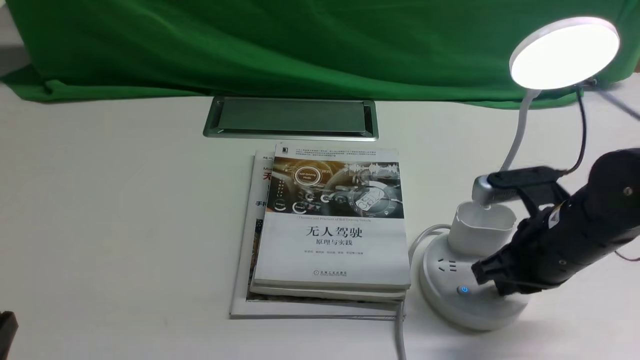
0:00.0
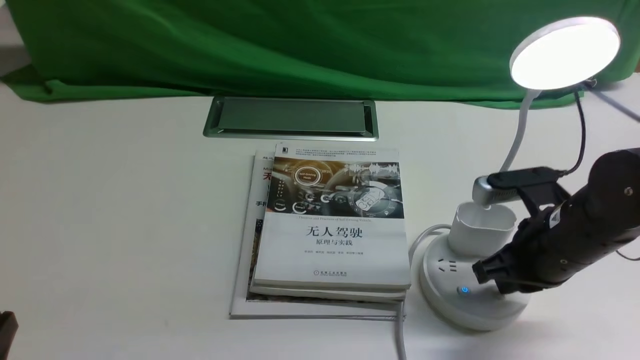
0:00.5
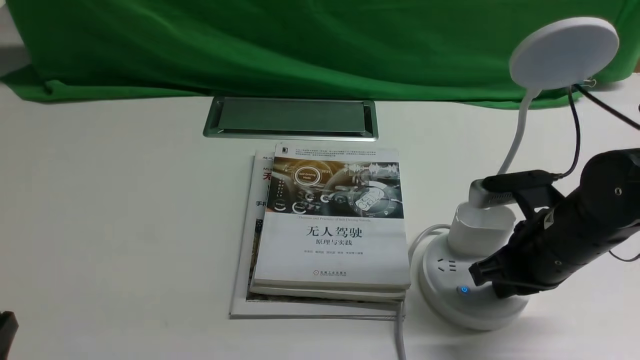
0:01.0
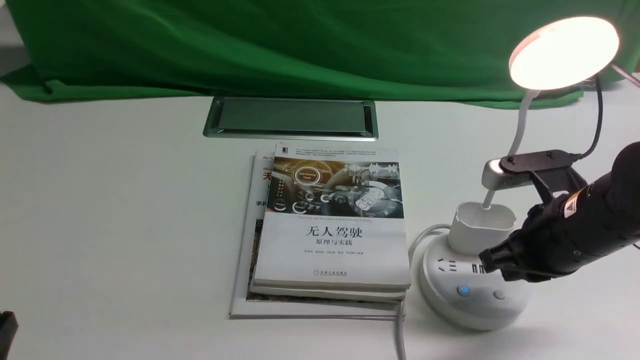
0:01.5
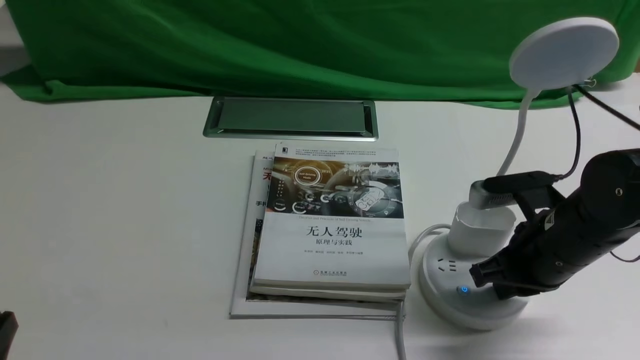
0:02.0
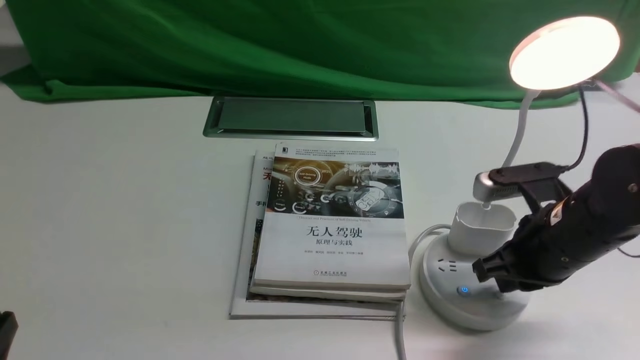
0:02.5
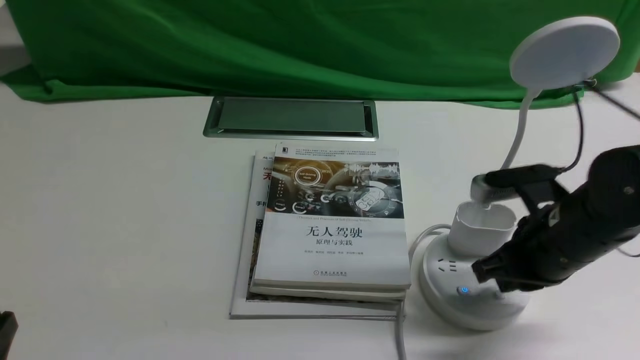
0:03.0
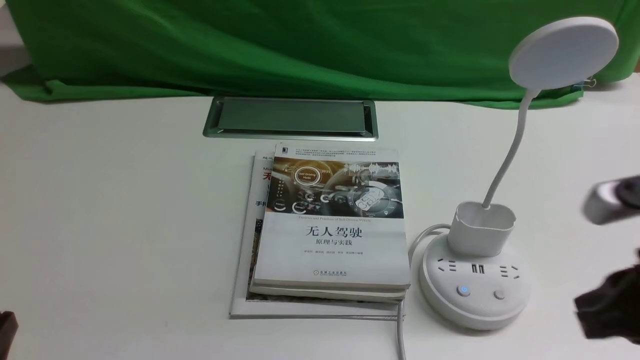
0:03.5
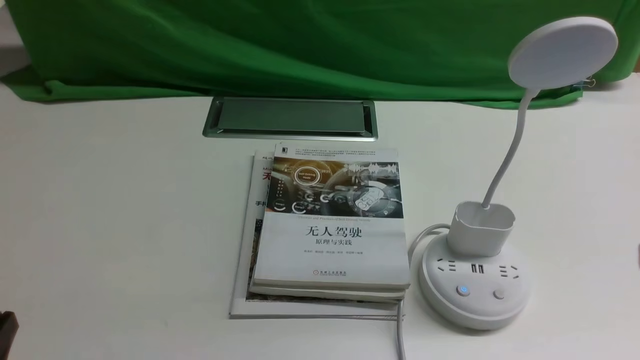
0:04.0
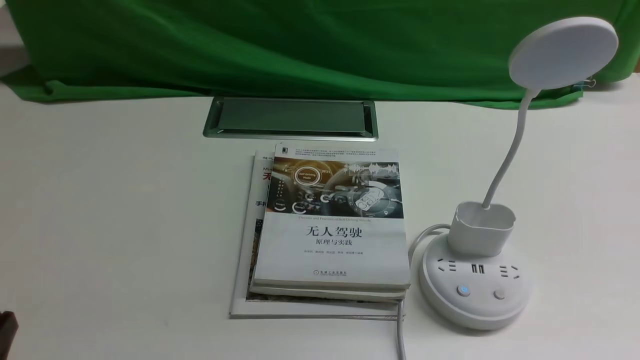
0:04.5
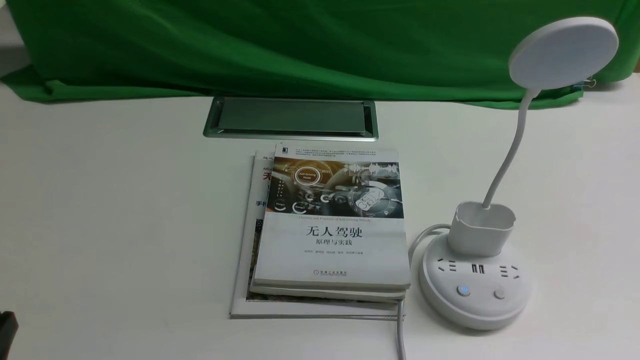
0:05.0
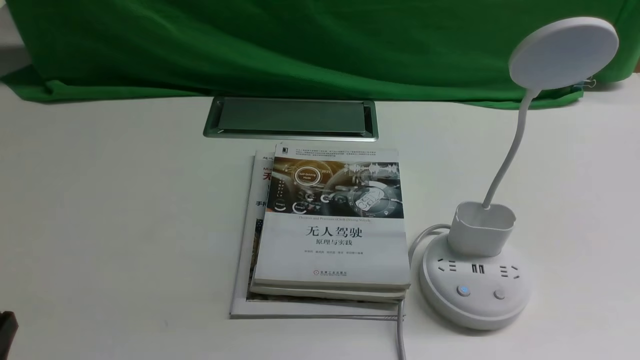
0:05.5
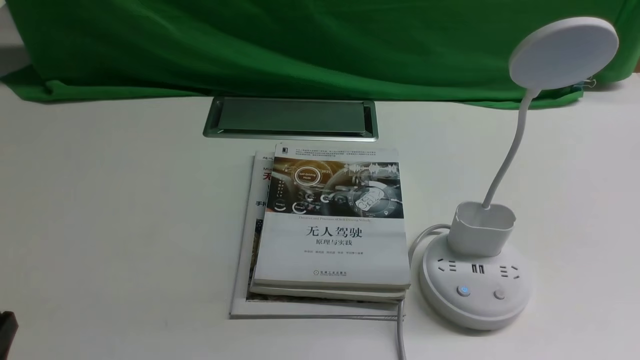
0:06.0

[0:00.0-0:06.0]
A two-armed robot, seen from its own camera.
Task of the whole recording: turn off the desk lamp on the white desktop by hand.
Step, 0:00.0 to 0:03.0: use the right arm to press the button switch on the lamp holder.
0:00.0 to 0:02.0: Both grippers stay about where they are.
0:02.0 to 0:04.0: The right gripper shifts some 20 cm backward, upward and to the right.
